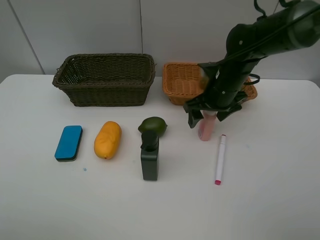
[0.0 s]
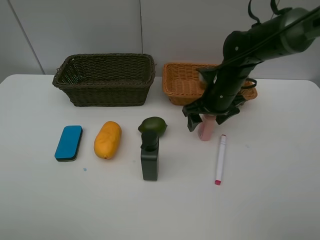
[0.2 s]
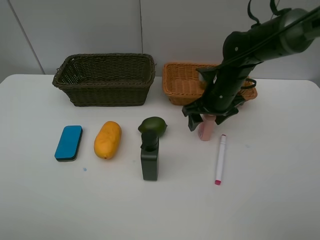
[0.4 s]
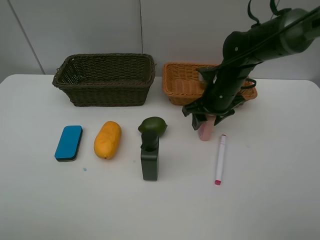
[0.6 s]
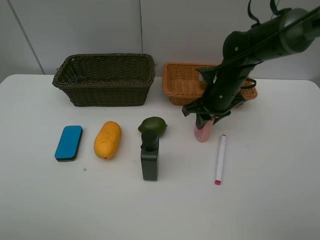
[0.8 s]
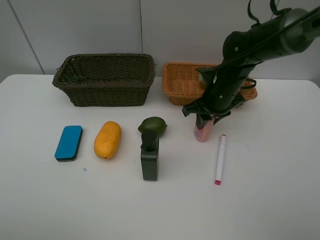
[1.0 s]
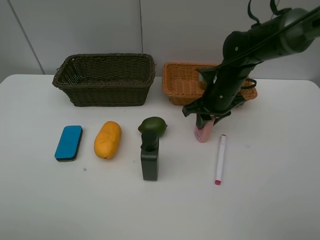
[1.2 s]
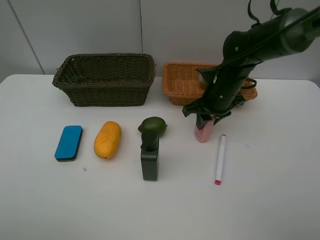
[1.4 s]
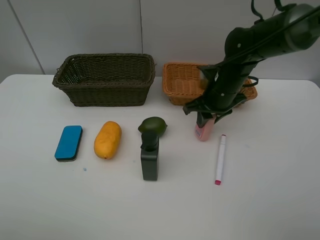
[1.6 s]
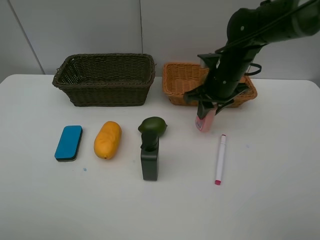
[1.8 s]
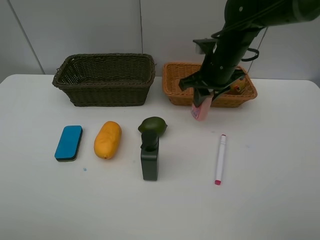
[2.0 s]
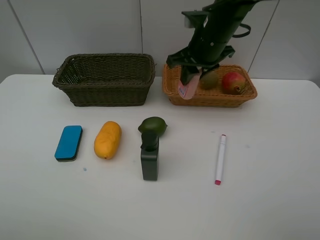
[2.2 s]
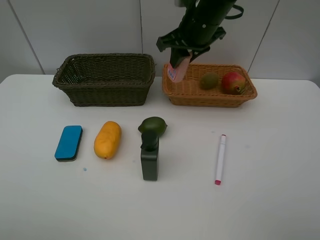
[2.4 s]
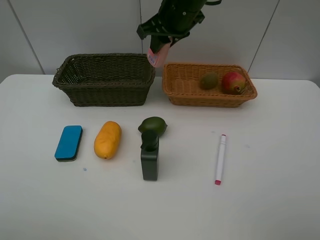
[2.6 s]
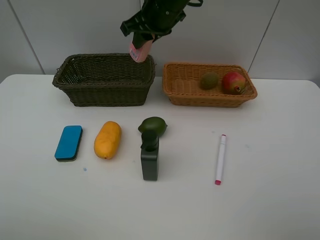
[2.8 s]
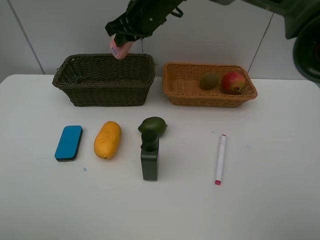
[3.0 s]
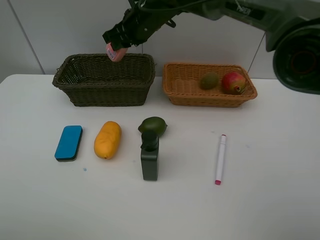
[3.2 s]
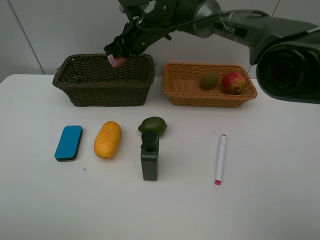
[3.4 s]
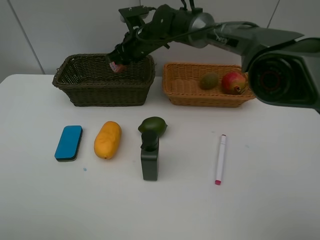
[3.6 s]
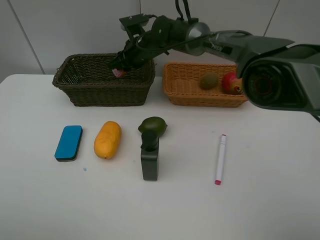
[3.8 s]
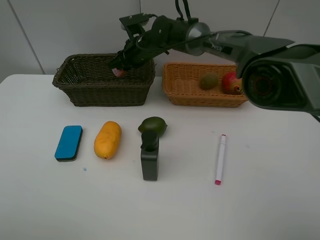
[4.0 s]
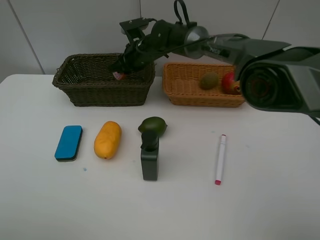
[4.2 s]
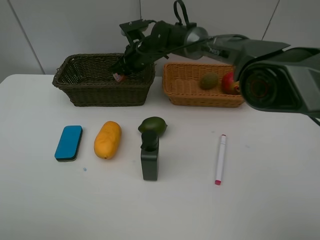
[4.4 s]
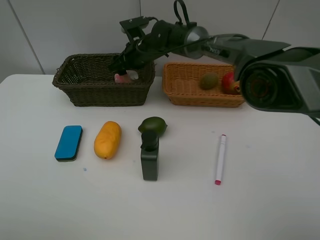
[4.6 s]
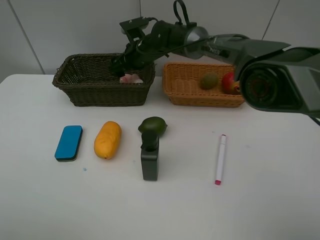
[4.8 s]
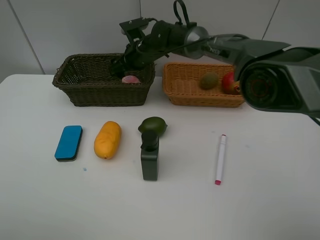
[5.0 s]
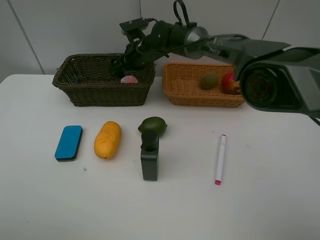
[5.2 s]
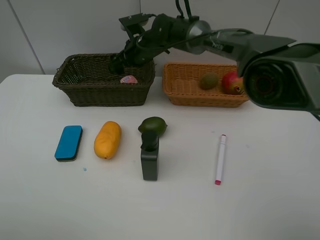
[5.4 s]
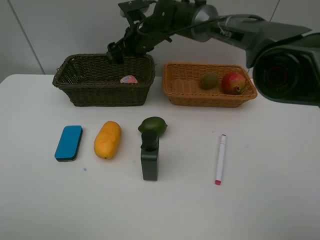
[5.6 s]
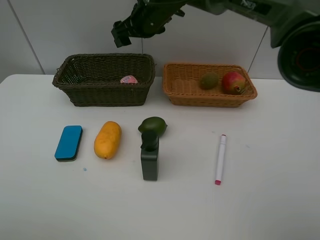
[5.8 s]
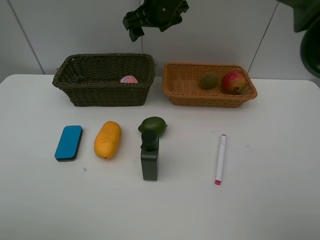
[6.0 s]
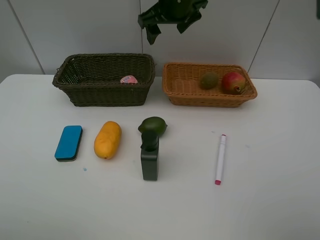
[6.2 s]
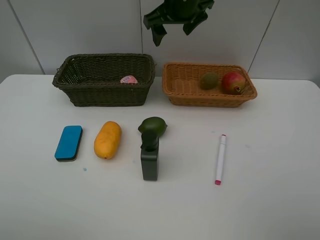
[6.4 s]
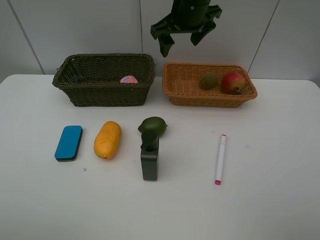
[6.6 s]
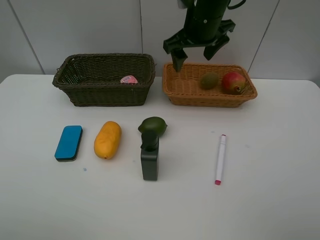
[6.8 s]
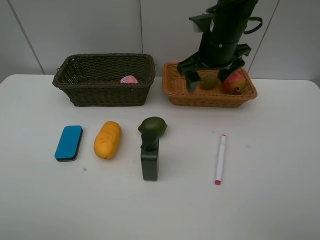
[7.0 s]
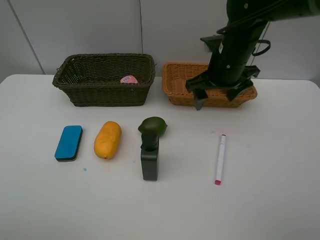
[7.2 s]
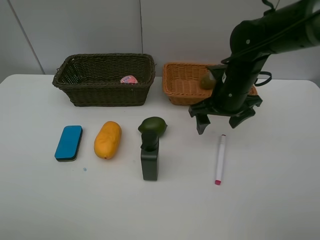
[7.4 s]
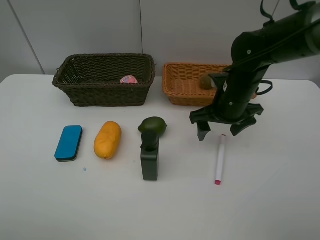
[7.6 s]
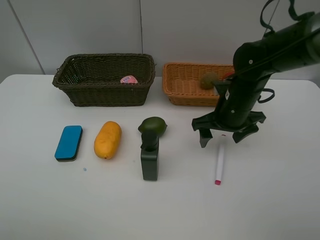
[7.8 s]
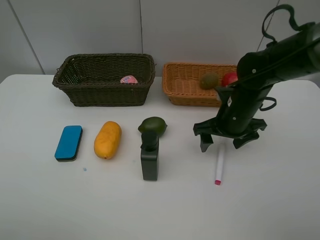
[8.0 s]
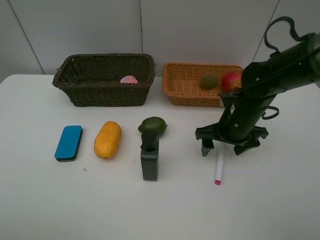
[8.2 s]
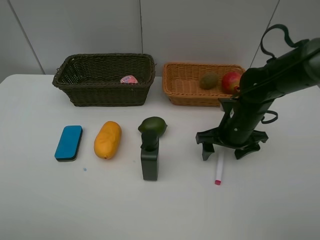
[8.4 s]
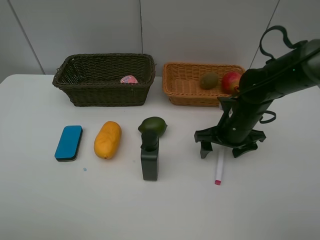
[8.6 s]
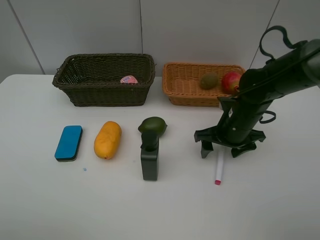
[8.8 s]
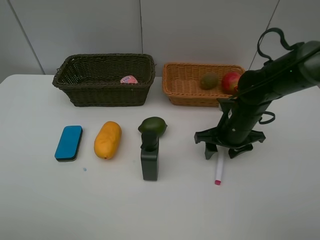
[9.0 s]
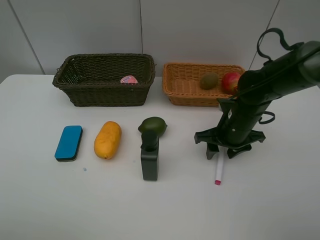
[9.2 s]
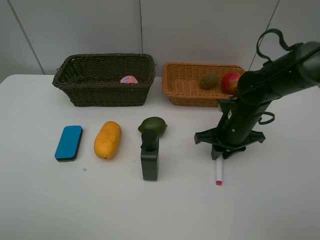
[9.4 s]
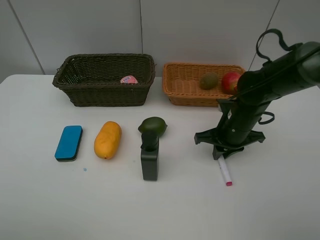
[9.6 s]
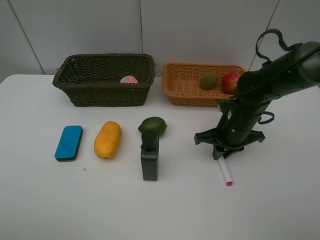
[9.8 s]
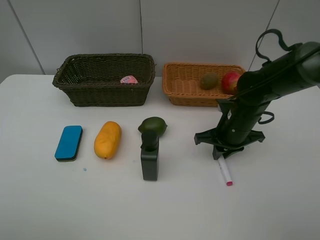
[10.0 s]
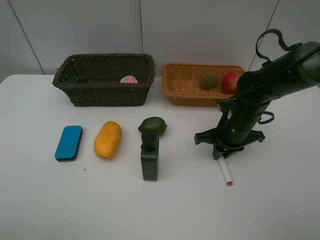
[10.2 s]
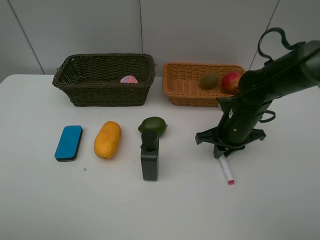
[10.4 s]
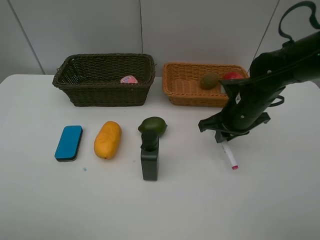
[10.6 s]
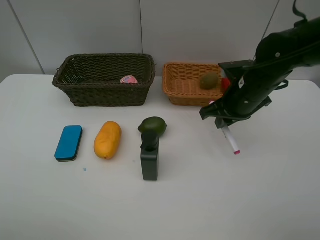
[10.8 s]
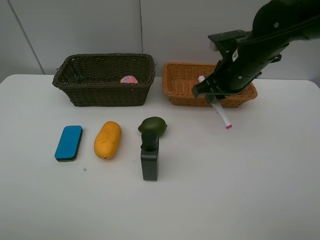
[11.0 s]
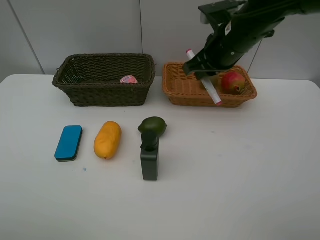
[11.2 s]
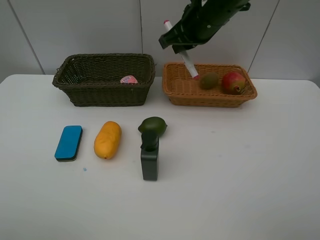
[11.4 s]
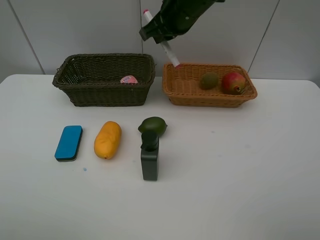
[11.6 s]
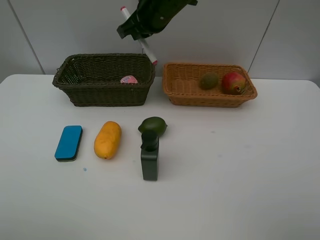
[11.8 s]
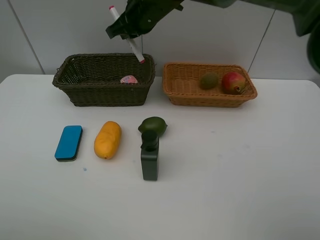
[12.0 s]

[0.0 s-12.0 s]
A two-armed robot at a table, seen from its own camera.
Task of the whole recording: Place multiple objects separately in different baskets.
Step, 0.0 to 2.0 s: Pick up the laundry detergent with right gripper.
Step, 2.2 to 5.2 s: Place the laundry detergent in the dark basket with right gripper.
Step, 5.4 to 10.4 s: Pick up the red marker with right gripper.
0.0 to 1.6 s: The right gripper closes its fingers.
1.6 to 3.0 s: The right gripper travels to the left, upward and forward by approximately 20 cm.
3.0 to 4.4 s: The right gripper is displaced downward by roughly 10 cm.
4.4 to 6.0 s: The right gripper goes some 15 cm upward, and opens its fingers.
6.0 to 7.6 s: The right gripper moves backward, to the right and downward, roughly 25 cm.
7.6 to 9.0 s: The right gripper shifts some 5 cm downward.
9.0 to 10.4 s: The right gripper closes its fingers.
10.4 to 12.0 s: The right gripper heads to the left, upward and forward, covering approximately 30 cm.

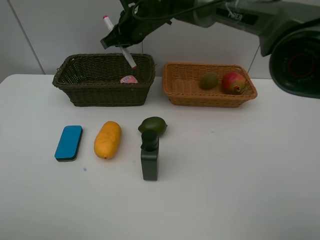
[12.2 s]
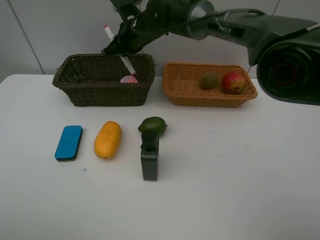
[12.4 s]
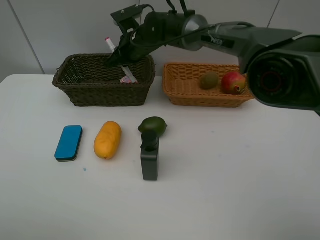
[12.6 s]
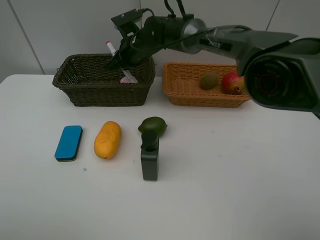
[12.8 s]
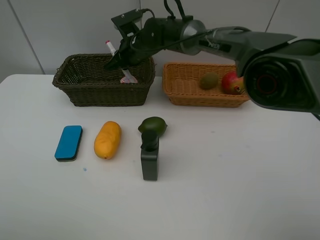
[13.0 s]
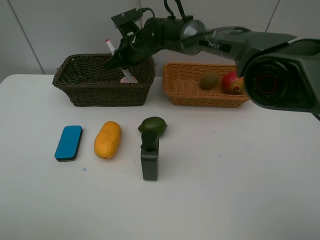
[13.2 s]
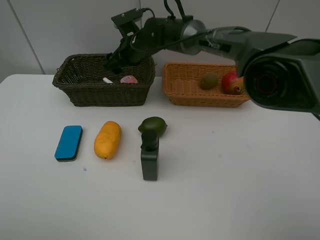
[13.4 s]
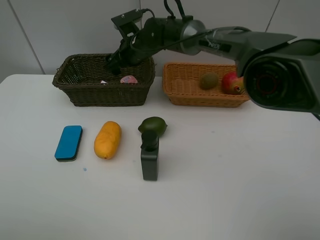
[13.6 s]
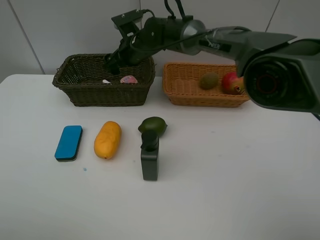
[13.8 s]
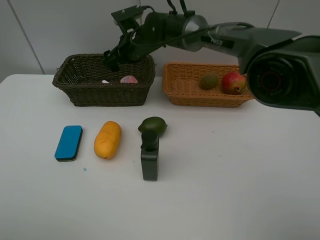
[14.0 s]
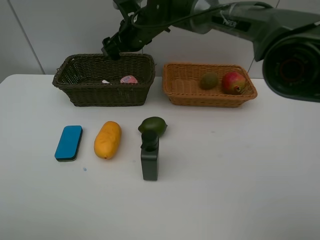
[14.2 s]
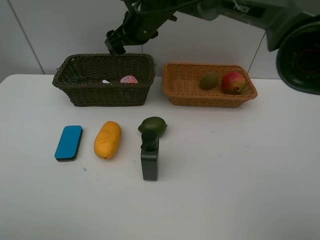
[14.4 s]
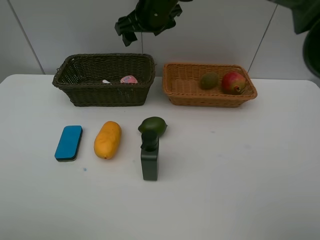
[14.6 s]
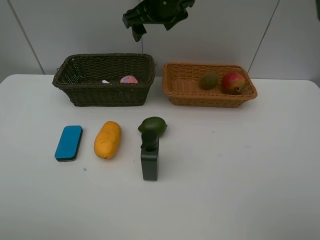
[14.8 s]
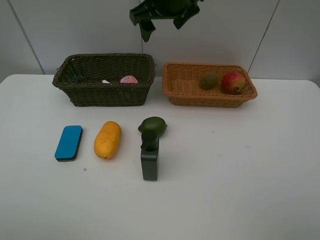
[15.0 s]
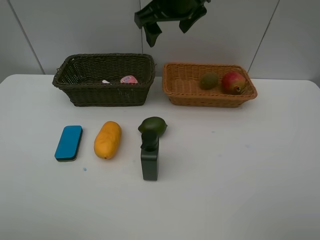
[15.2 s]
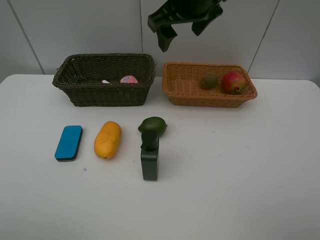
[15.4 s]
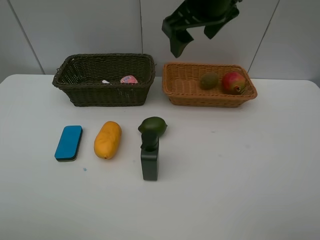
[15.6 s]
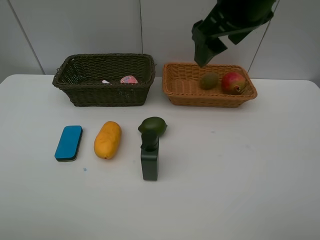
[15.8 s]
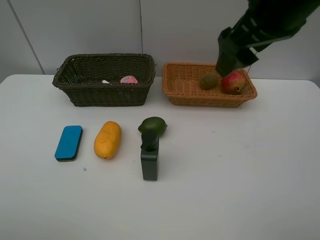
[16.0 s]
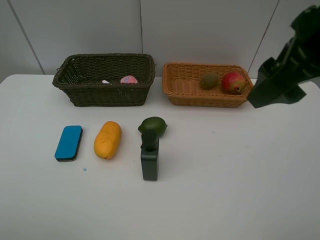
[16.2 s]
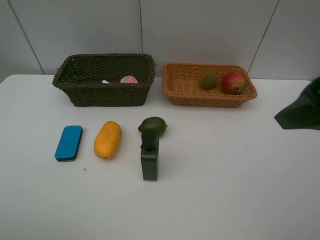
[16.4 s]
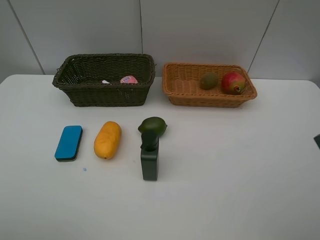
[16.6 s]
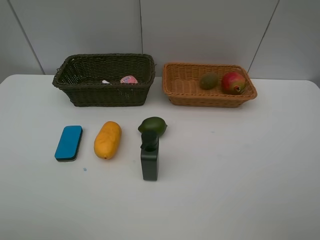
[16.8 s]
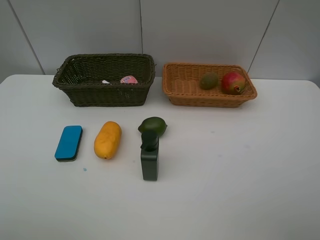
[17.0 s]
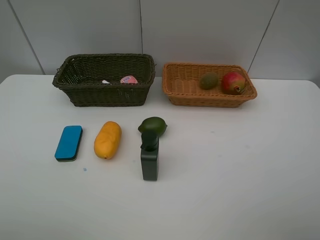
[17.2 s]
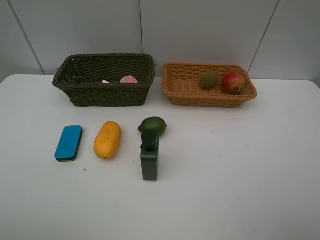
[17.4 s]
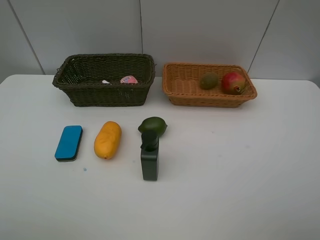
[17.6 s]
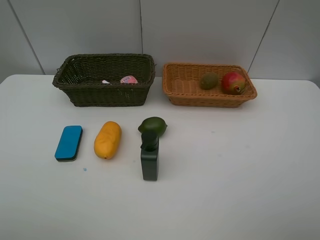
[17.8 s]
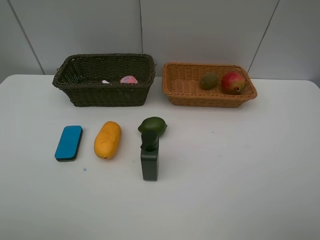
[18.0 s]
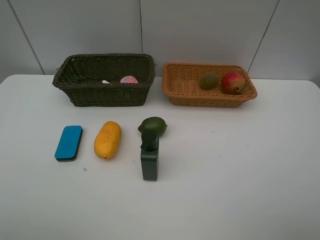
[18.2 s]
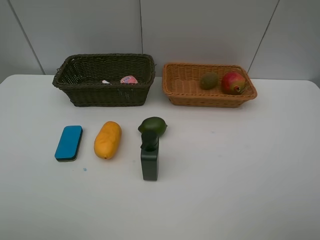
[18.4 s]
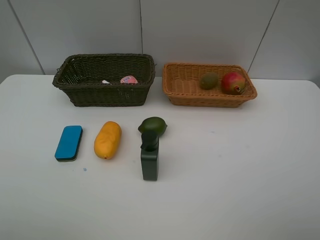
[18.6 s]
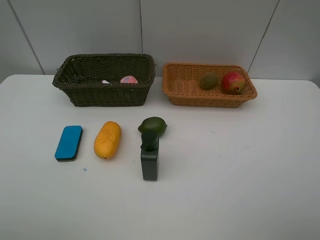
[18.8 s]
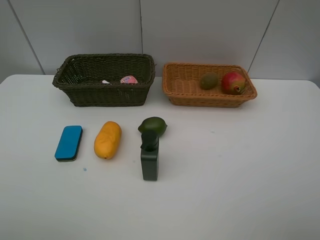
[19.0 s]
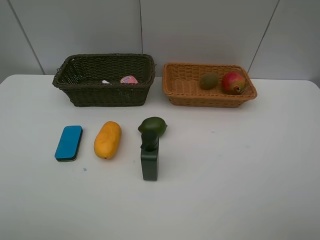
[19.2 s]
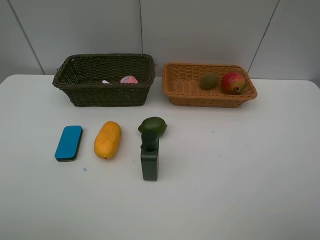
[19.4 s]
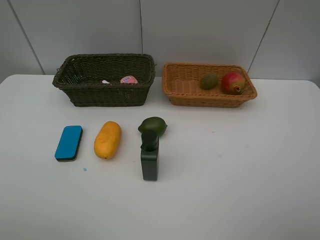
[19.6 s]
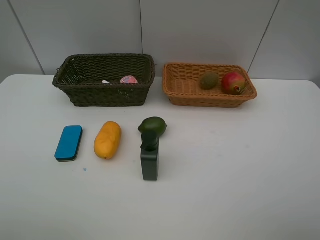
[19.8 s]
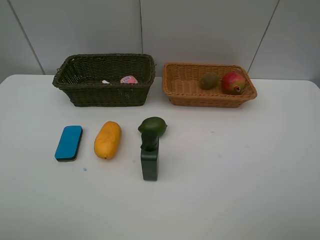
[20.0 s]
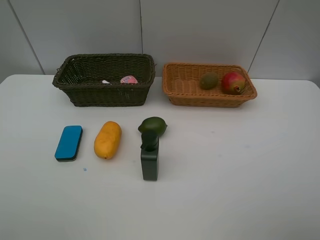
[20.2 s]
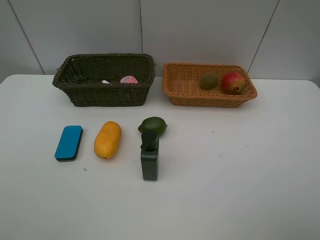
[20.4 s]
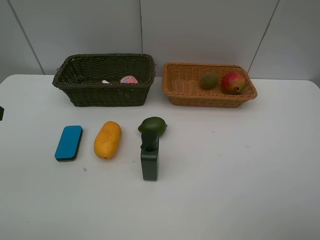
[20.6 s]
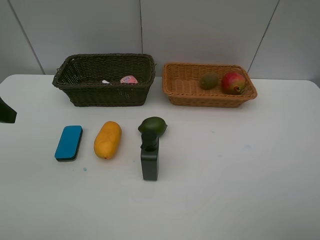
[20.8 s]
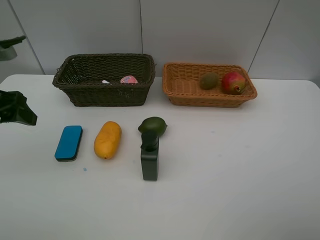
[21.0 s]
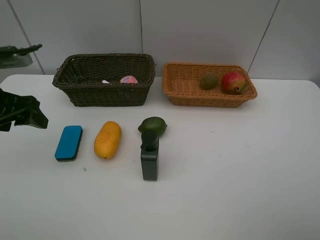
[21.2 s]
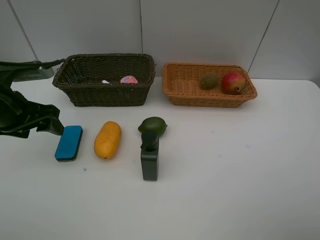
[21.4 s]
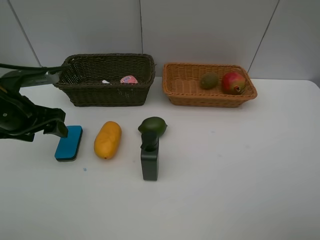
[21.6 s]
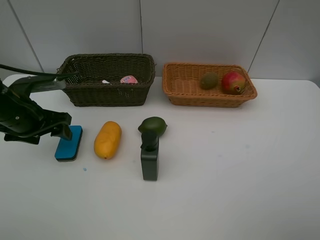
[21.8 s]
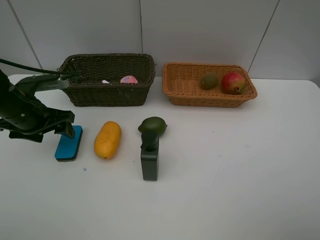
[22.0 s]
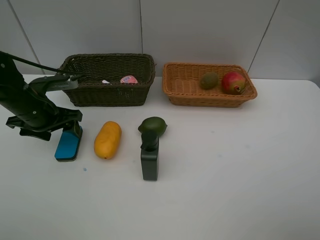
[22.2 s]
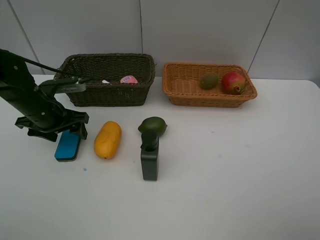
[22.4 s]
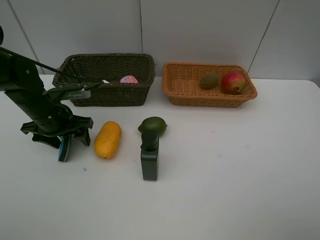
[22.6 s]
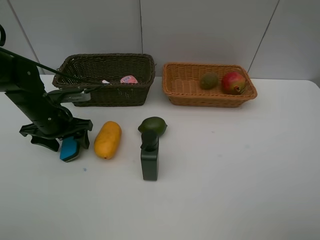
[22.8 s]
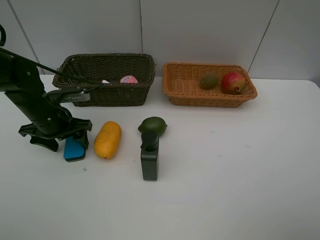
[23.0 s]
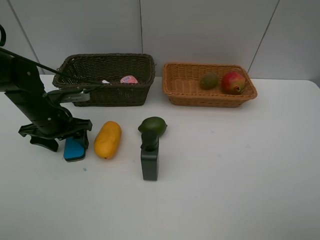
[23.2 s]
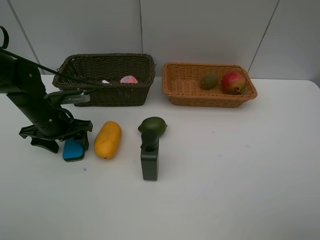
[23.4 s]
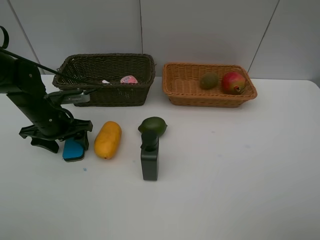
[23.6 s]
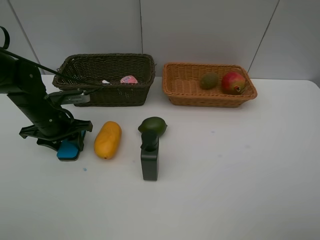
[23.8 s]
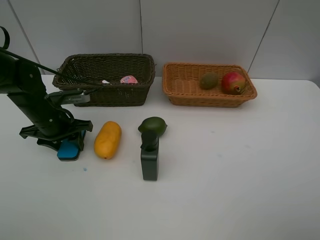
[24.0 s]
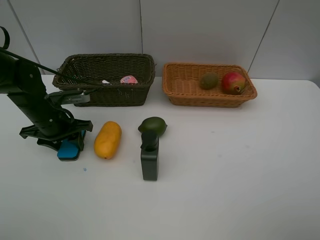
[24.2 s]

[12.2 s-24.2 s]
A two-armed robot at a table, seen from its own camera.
Task of the whole recording: Place multiple objects separately in different baskets.
12.2 to 13.8 s: The right gripper is displaced downward by approximately 5 cm, and opens up.
13.8 to 15.2 s: The right gripper shifts roughly 20 cm upward, backward and to the right.
15.2 to 16.6 s: The right gripper moves backward and to the right, roughly 35 cm.
19.8 to 21.2 s: The left gripper moves forward, roughly 25 cm.
21.2 to 22.6 s: The left gripper travels downward and forward by roughly 15 cm.
22.6 to 24.2 s: The left gripper closes up.
